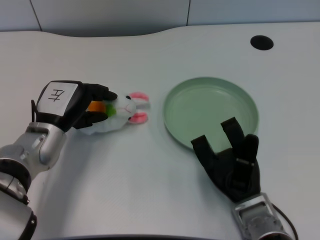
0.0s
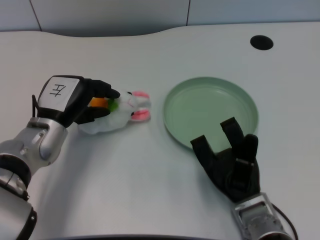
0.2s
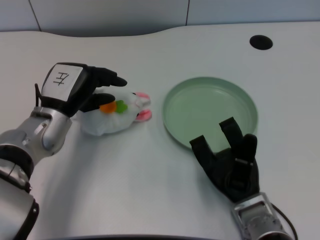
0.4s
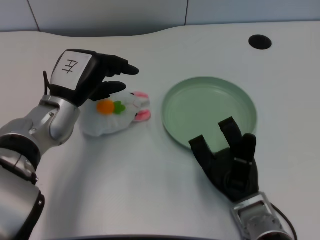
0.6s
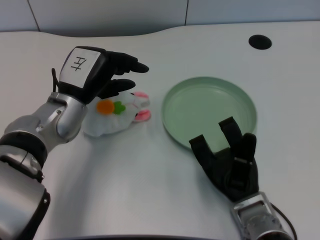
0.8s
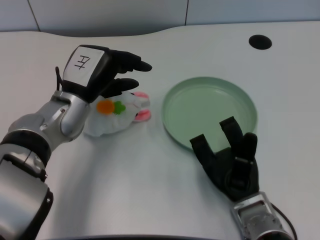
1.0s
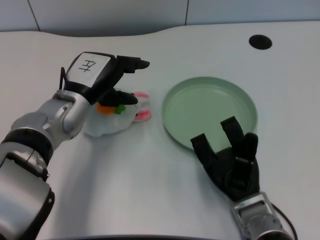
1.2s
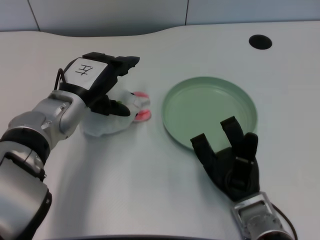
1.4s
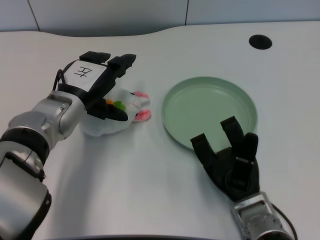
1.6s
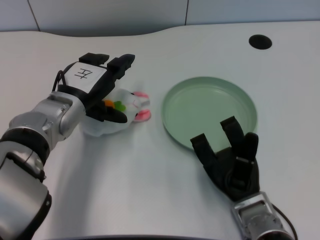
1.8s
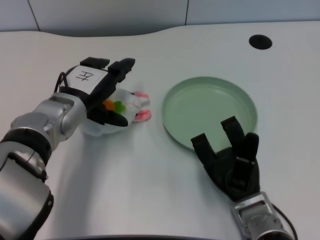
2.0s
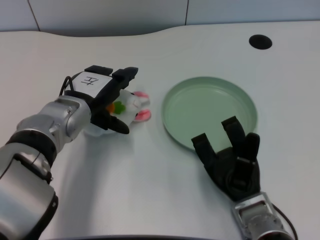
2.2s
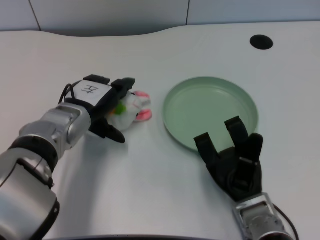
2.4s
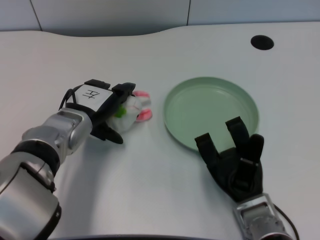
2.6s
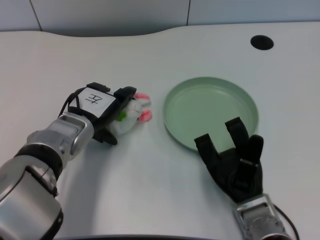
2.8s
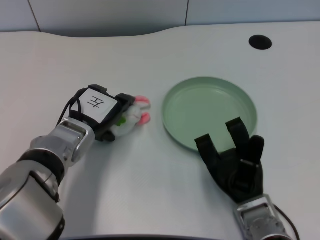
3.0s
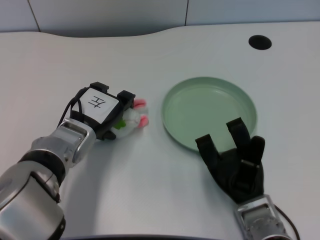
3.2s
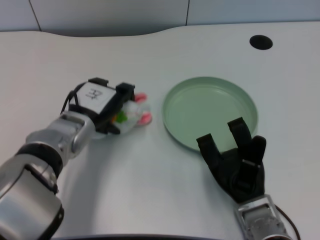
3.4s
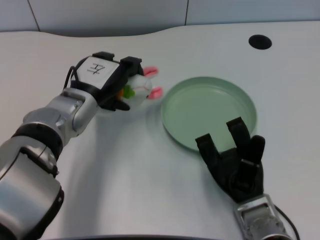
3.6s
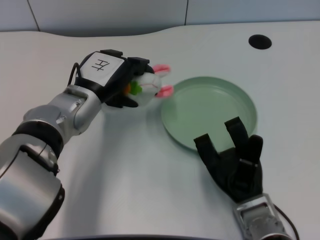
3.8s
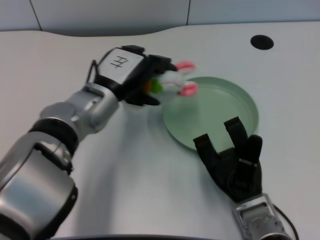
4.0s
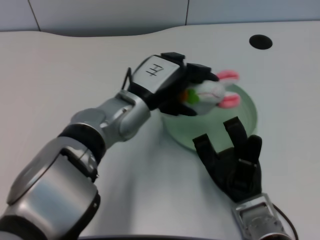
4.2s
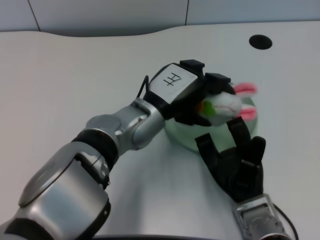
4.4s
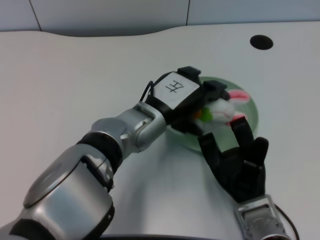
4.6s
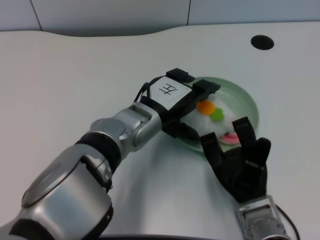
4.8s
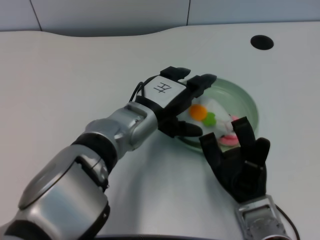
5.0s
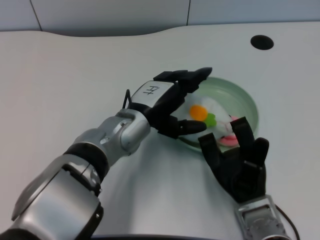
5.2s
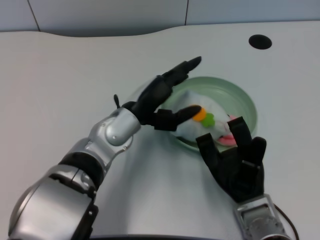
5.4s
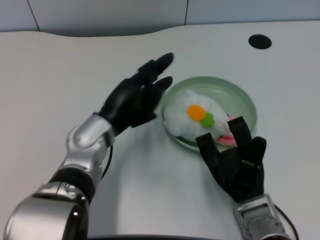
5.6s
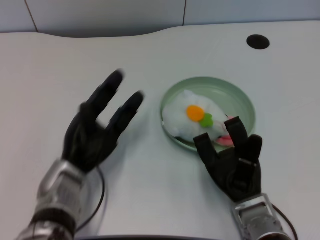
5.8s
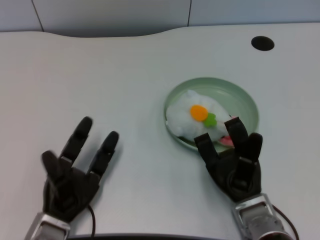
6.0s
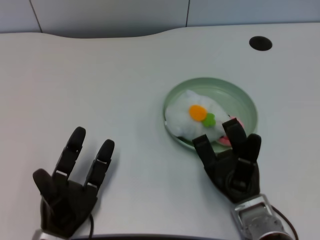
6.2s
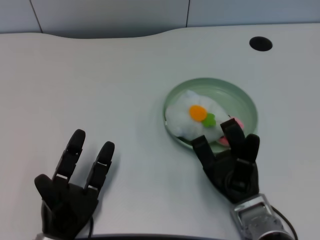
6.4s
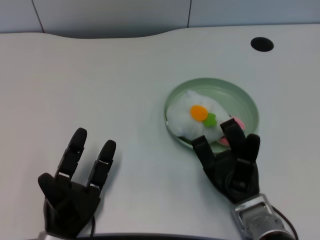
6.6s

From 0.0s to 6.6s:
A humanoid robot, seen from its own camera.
Task of the whole recording: pick up the rabbit doll from the table and place it on the plate.
Step, from 0.0s to 3.4s: Grasp the rabbit doll with the left gripper.
Step, from 3.6s to 5.2s: Place the rabbit doll into the plate with the left gripper.
From 0.0s to 1.6s: The left hand changes place by about 5 cm.
From 3.2s to 5.0s: The left hand moves to the right, about 10 cm.
From 5.0s to 6.6s: The left hand shifts some 25 cm backward, downward and to the left.

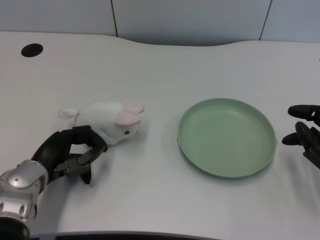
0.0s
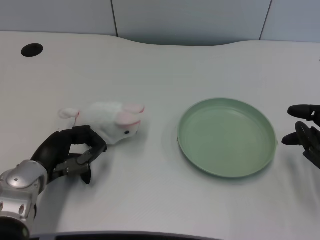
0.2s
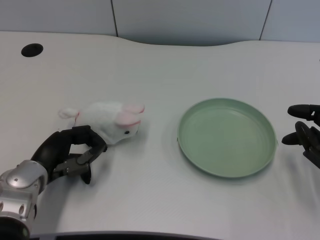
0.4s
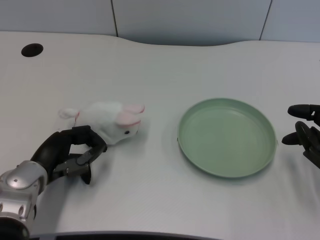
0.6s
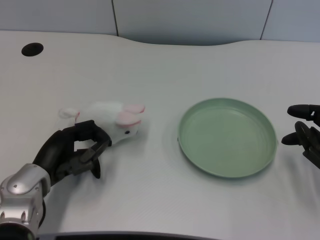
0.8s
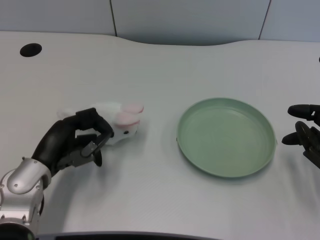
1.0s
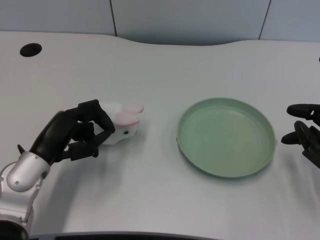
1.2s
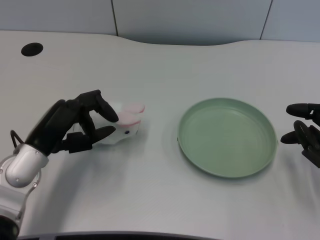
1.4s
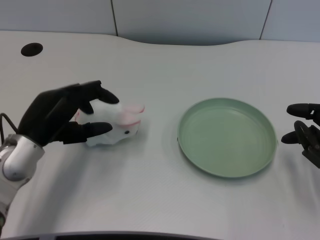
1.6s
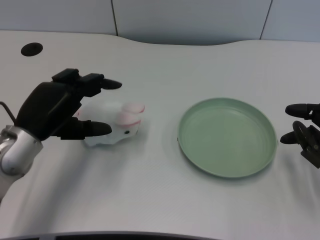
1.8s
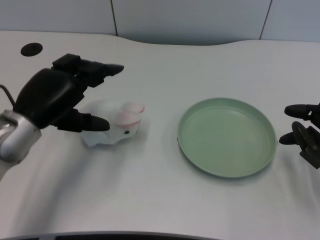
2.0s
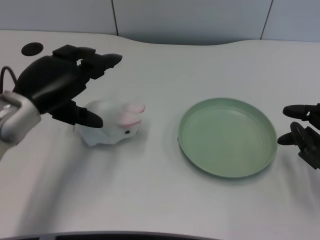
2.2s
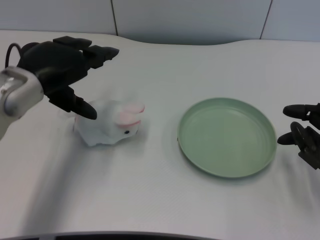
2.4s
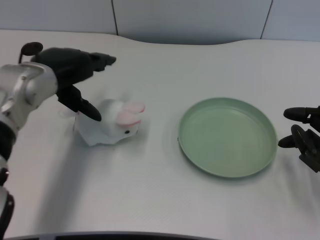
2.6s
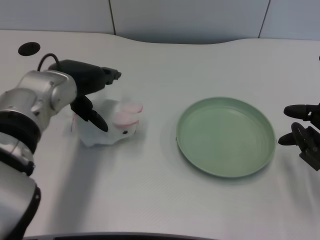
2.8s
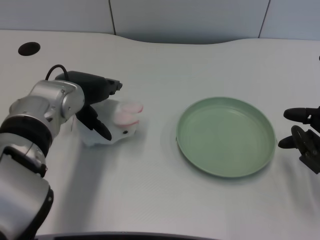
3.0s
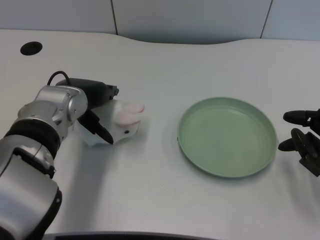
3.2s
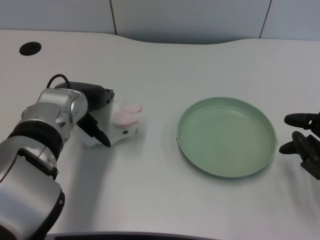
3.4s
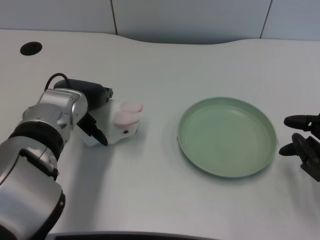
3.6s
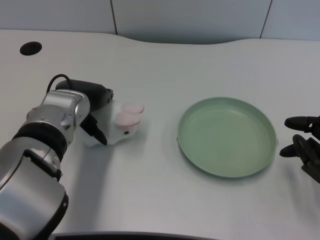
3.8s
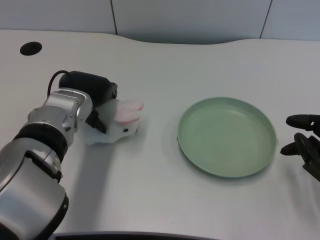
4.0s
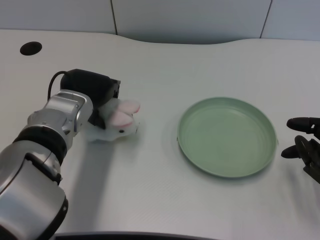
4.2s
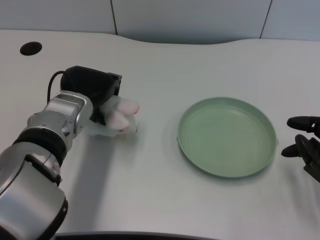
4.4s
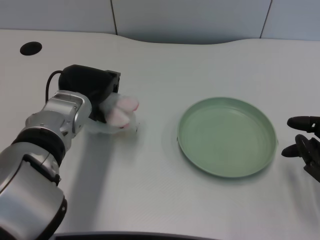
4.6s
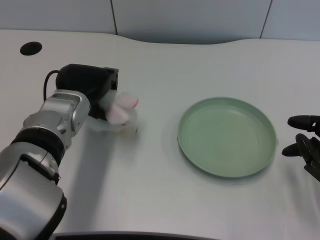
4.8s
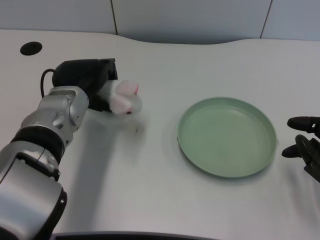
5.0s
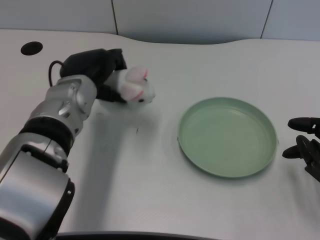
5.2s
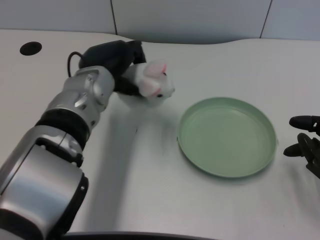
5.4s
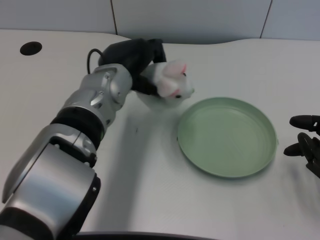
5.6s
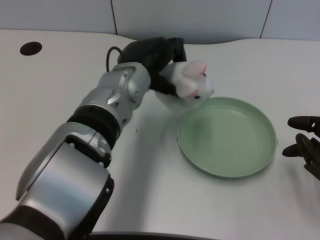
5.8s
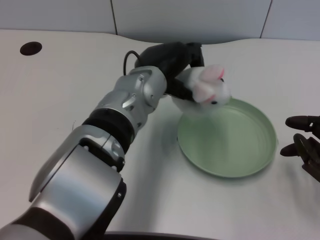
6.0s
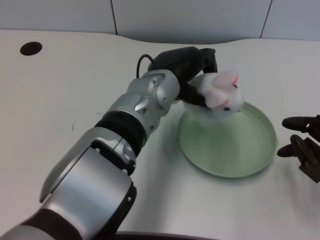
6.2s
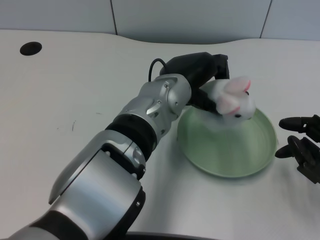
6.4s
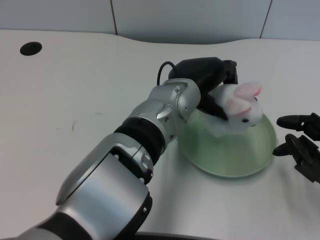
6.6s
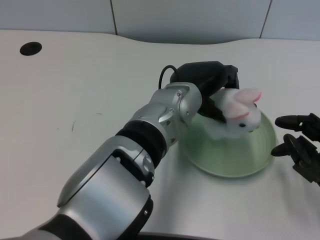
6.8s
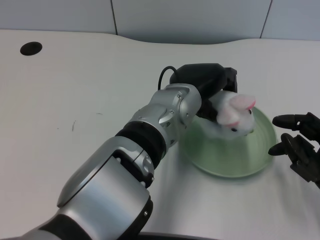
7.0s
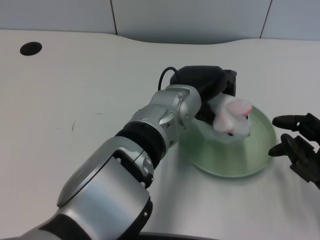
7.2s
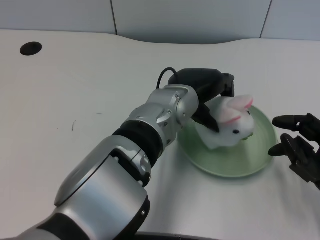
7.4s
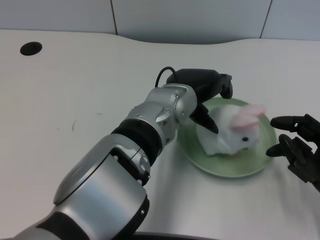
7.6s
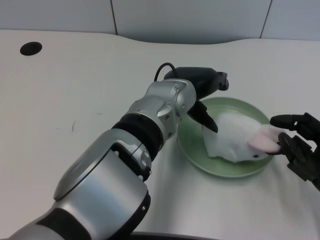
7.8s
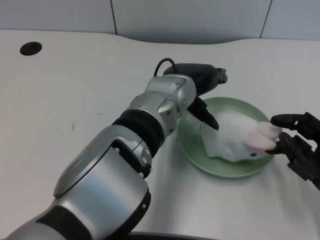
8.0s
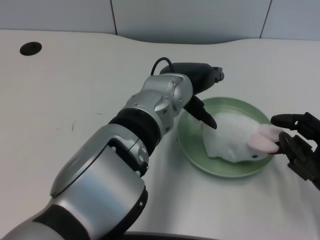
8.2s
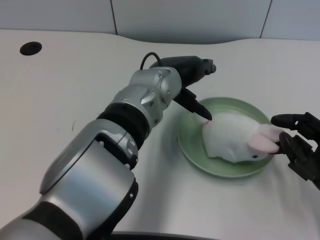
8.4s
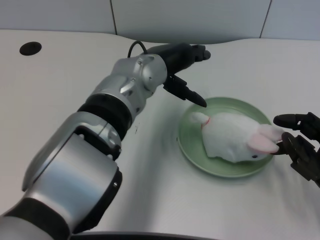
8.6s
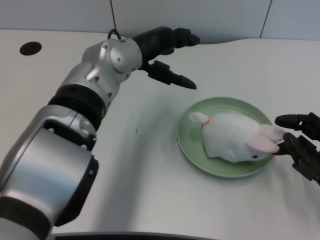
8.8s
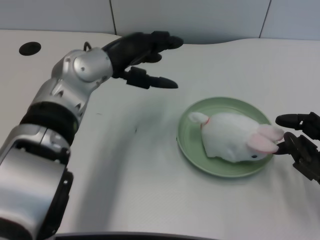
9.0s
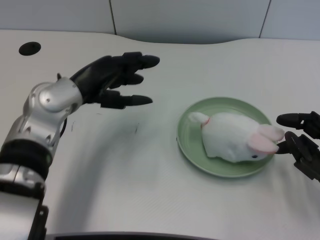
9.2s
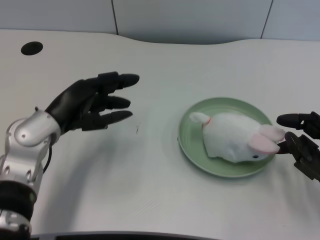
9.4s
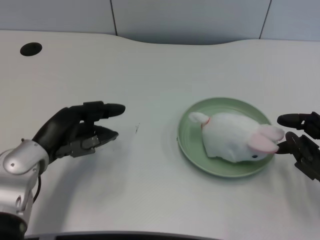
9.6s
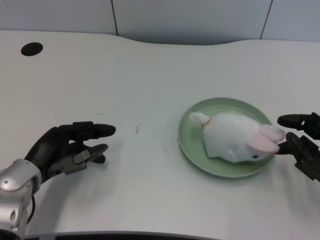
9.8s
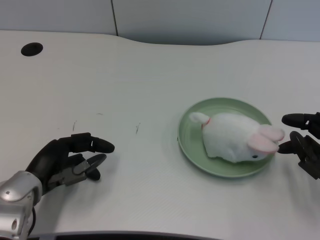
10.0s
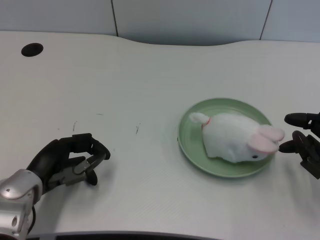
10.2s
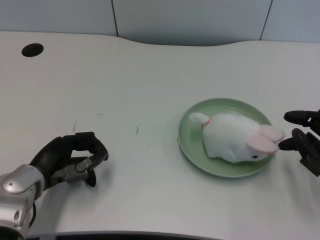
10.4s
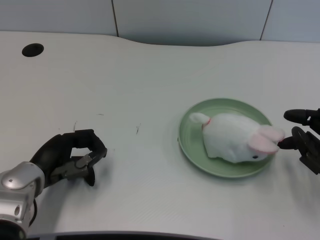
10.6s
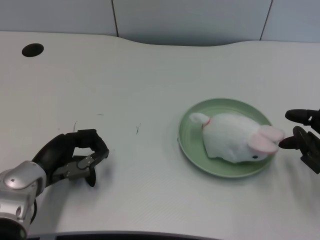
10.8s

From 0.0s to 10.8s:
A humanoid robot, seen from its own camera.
Task of the whole recording: pick up the rabbit doll from the table and place it on the plate.
Step, from 1.0s to 4.8s: Grasp the rabbit doll with the left gripper.
Step, from 5.0s to 7.8s: Place the rabbit doll into the plate with the left gripper.
From 1.6s to 3.0s: The left hand travels forward and to the right by approximately 10 cm.
From 3.0s to 4.6s: The hands move only a little.
From 4.6s to 6.2s: The left hand is displaced to the right by about 15 cm.
From 7.8s to 9.2s: The left hand travels to the left by about 15 cm.
From 9.2s to 10.8s: The left hand heads downward, backward and to the left, covering about 15 cm.

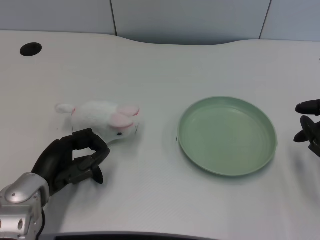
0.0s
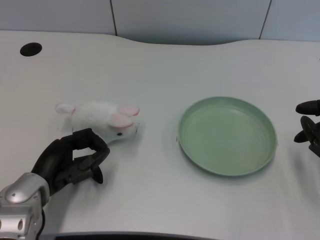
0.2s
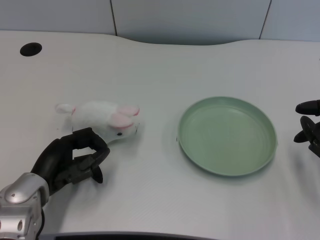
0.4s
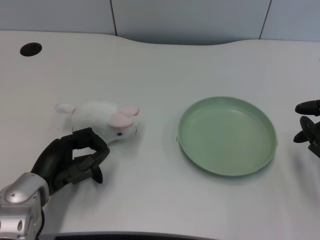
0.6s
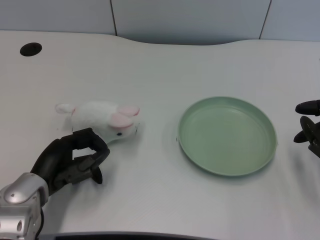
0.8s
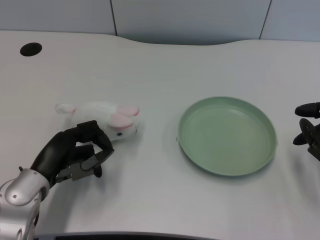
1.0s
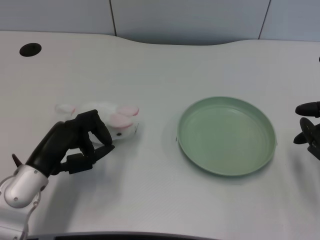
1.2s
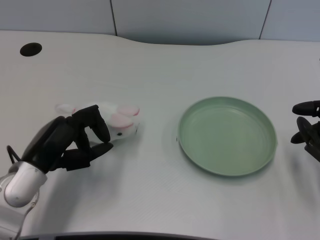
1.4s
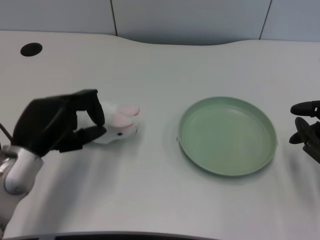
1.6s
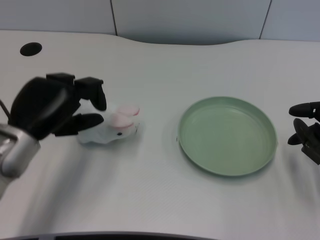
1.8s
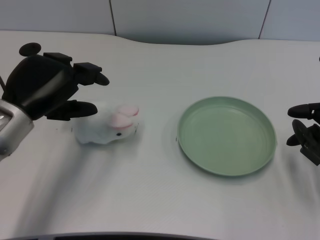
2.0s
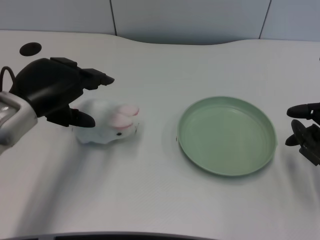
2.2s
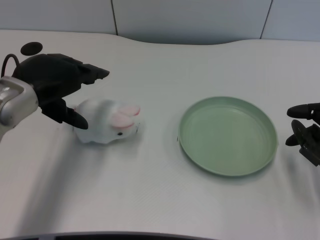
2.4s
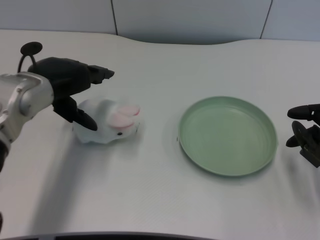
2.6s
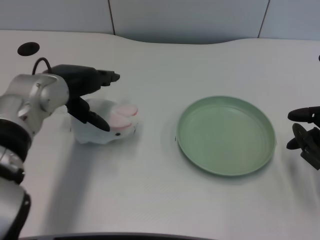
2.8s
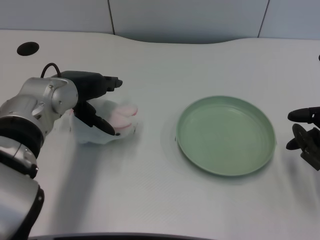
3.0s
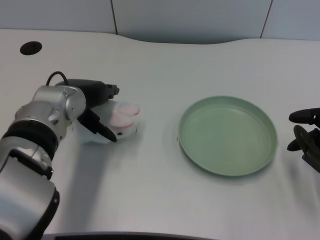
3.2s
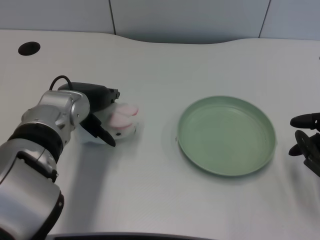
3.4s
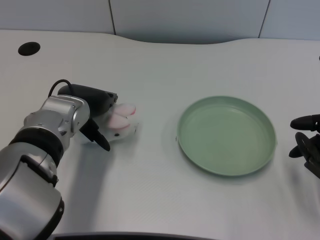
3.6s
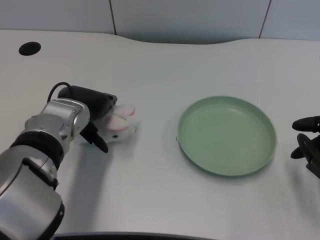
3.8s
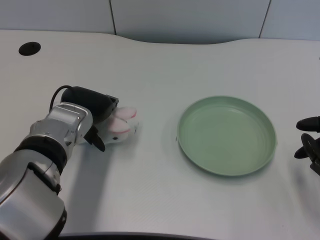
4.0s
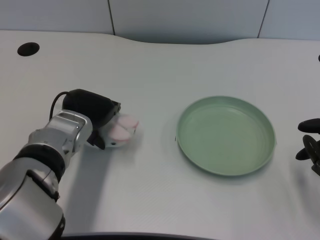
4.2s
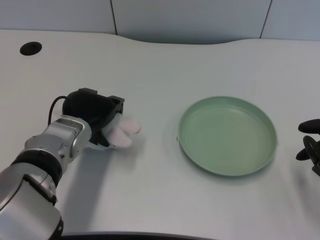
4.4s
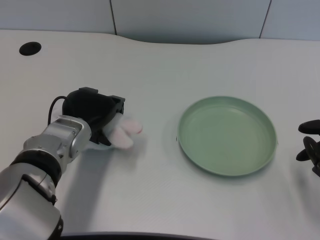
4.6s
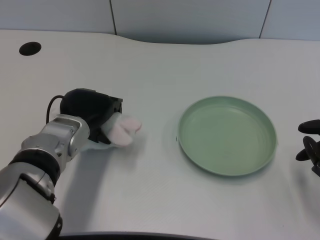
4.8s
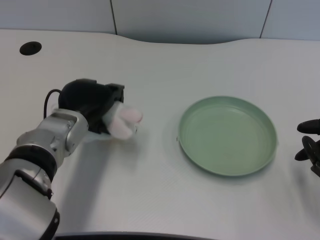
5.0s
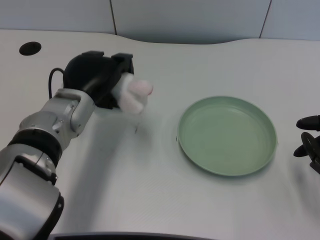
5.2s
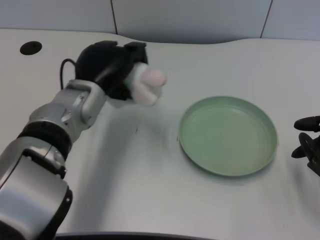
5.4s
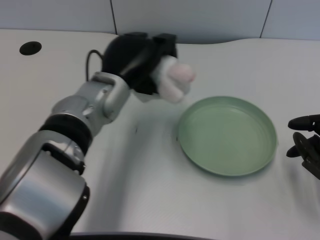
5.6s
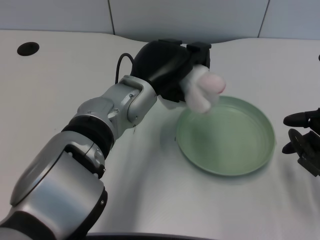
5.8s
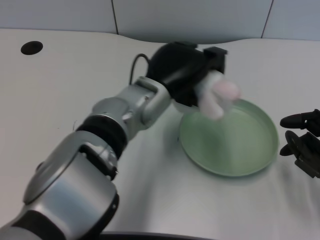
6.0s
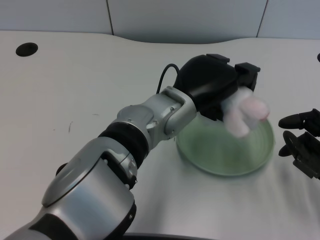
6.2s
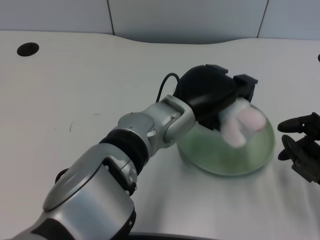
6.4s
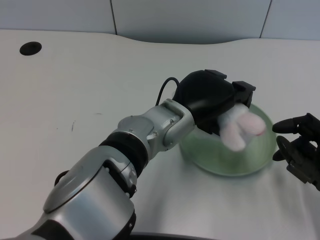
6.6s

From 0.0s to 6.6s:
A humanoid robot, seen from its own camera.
Task of the whole recording: pick up the rabbit doll from the table and place it on the plate.
Step, from 1.0s to 4.8s: Grasp the rabbit doll with the left gripper.
From 1.6s to 3.2s: The left hand is displaced forward and to the right by roughly 10 cm.
From 5.0s to 6.6s: The left hand shifts roughly 15 cm to the right.
